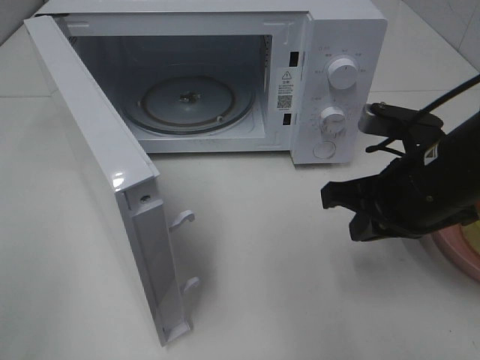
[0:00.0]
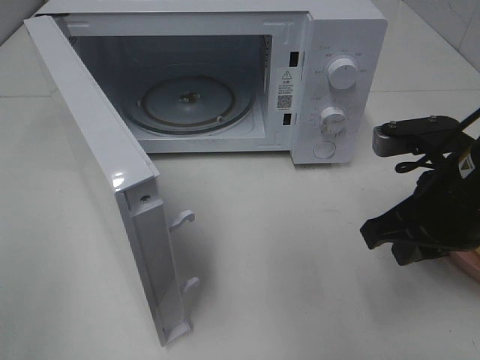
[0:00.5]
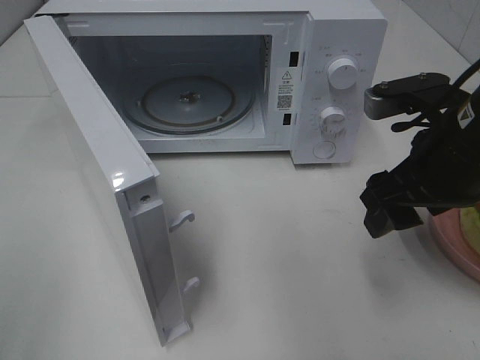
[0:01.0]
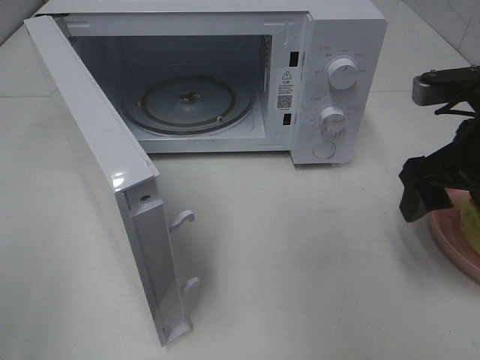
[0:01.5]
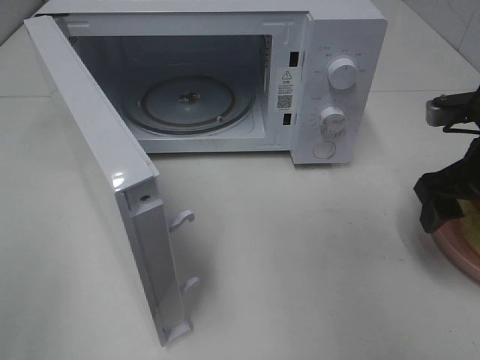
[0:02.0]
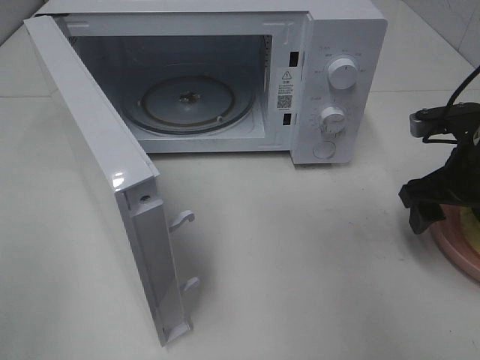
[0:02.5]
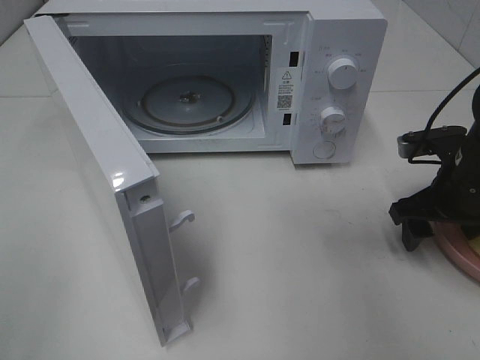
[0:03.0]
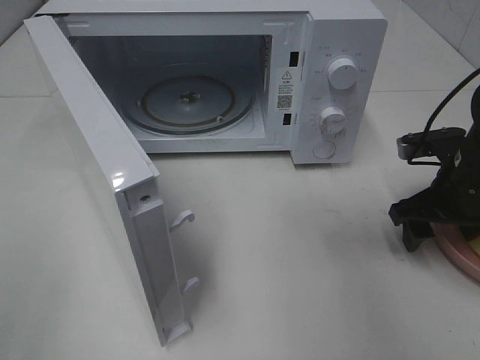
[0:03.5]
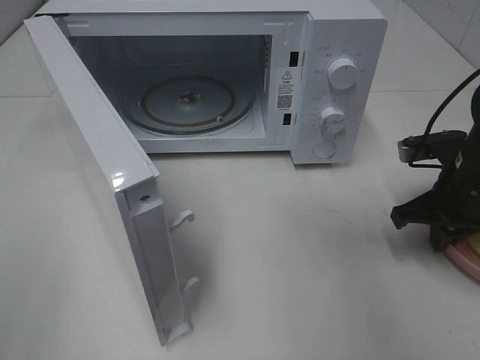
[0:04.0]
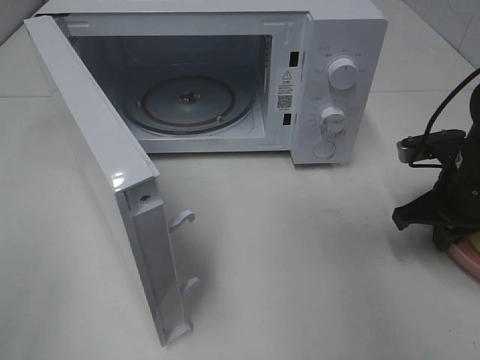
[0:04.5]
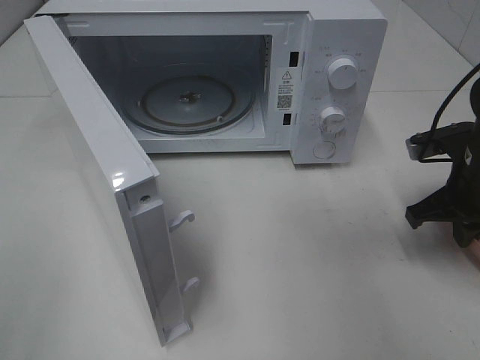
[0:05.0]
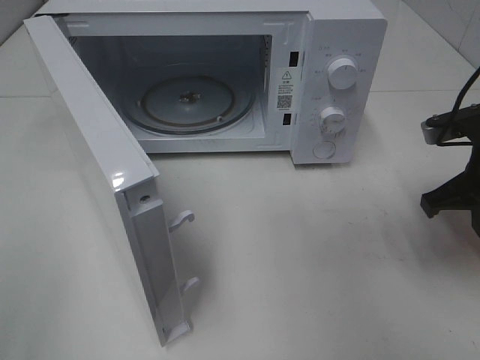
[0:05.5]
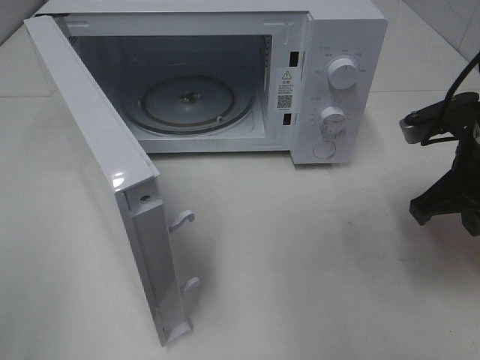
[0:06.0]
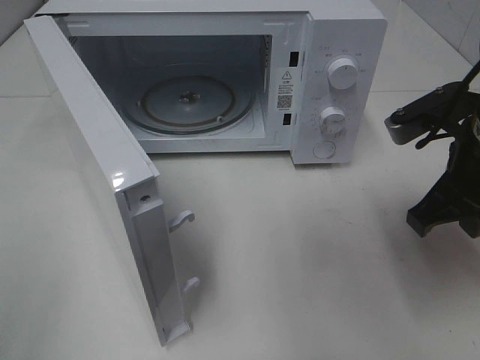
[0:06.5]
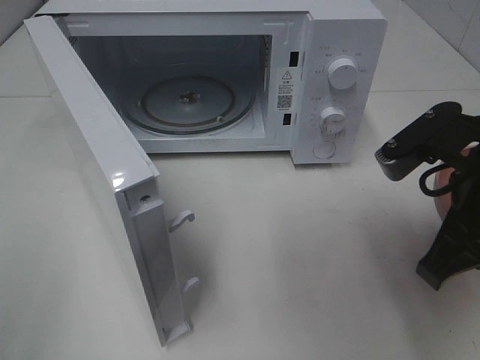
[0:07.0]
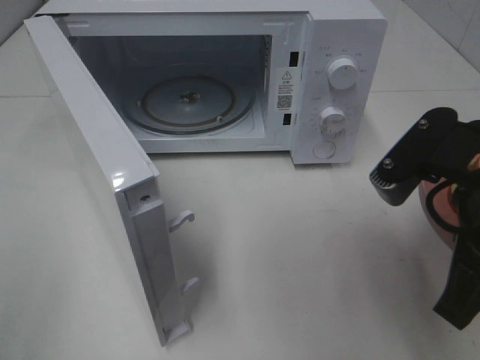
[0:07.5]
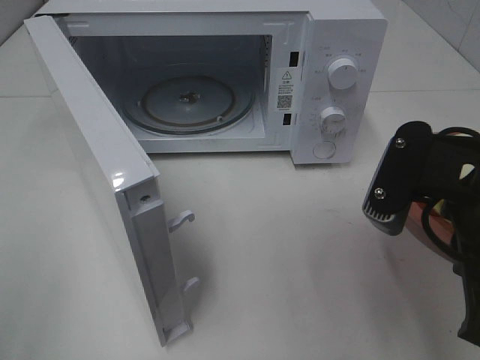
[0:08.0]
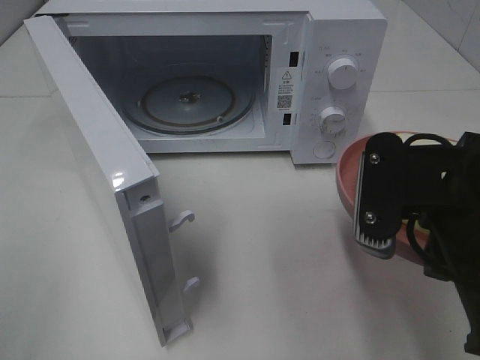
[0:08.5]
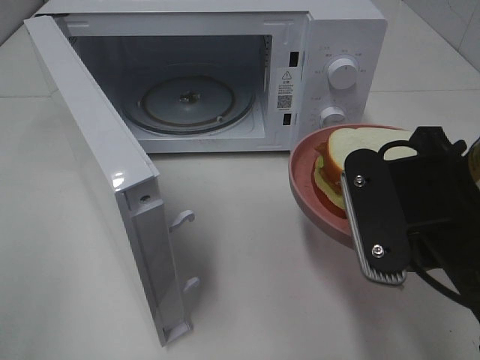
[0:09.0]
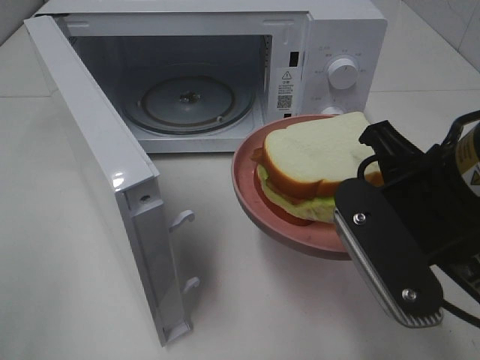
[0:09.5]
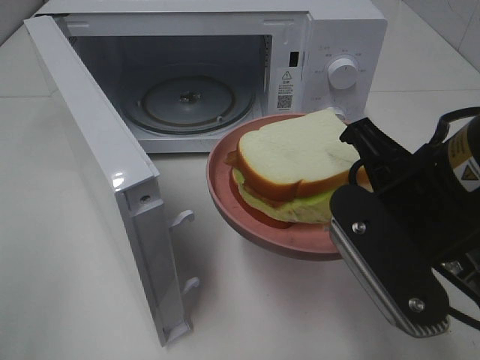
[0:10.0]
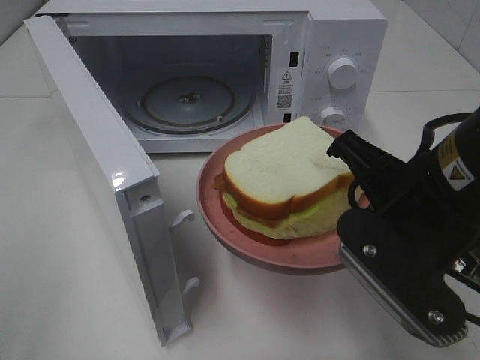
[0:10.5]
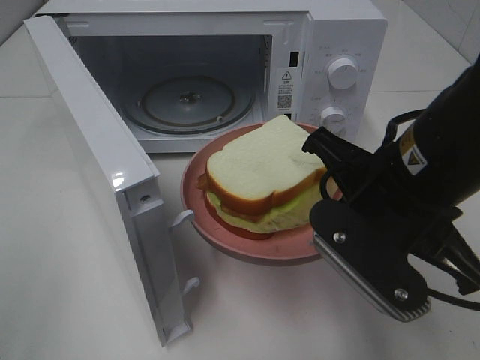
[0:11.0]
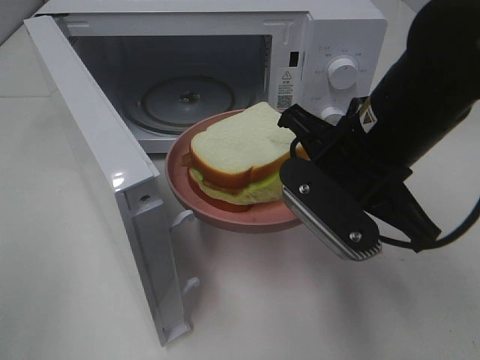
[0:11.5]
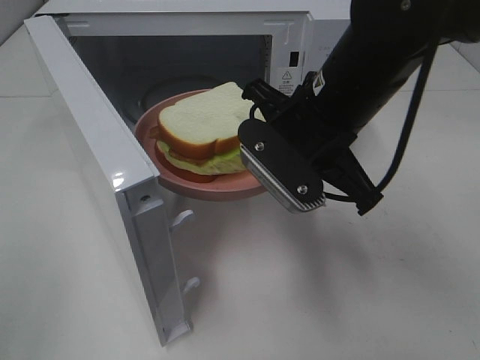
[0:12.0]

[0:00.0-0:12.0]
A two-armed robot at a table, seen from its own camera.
Task of the whole recording: Heat Sandwich.
Step, 0.0 to 4.5 s: Right hand: grab the plate with the sandwich.
0.0 to 2.0 s: The right gripper travels to the right by roughly 10 cm, and opens its fingers.
2.0 to 4.0 s: The right gripper is displaced downward by roughly 5 cm, and closes its fingers.
4.0 to 6.0 s: The right gripper travels upward by some 5 cm.
6.0 to 8.0 s: The right gripper moves backward and to the left, roughly 15 cm.
10.0 to 12.0 s: The right gripper travels forward and to the left by some 10 cm.

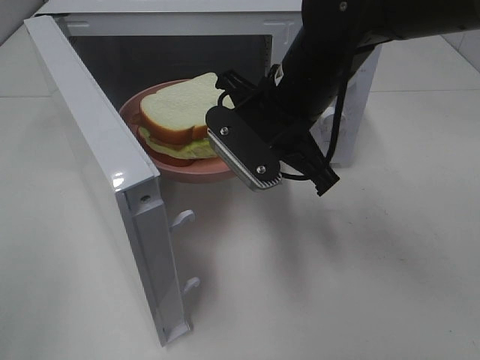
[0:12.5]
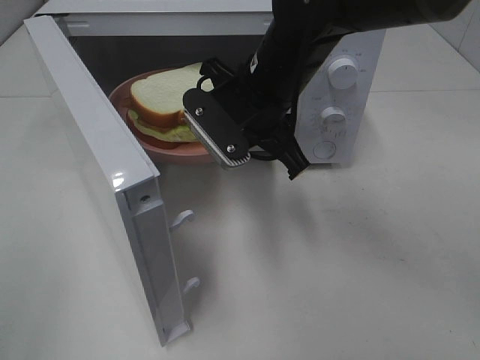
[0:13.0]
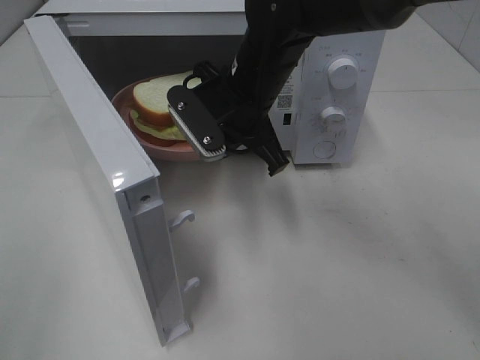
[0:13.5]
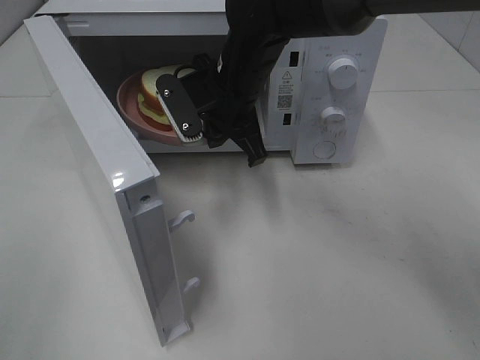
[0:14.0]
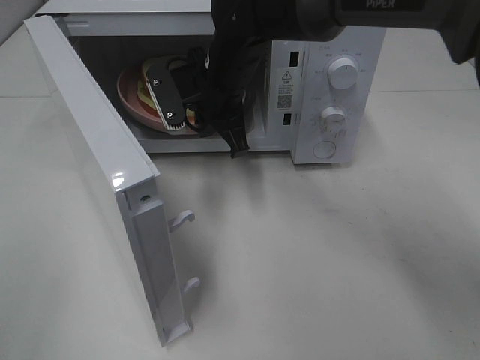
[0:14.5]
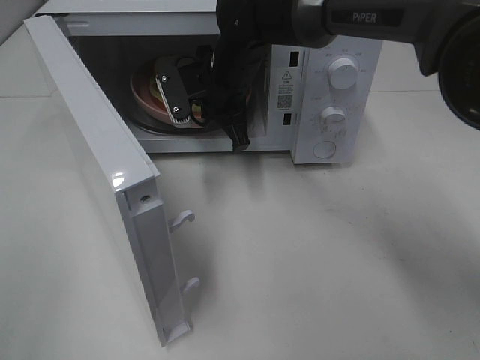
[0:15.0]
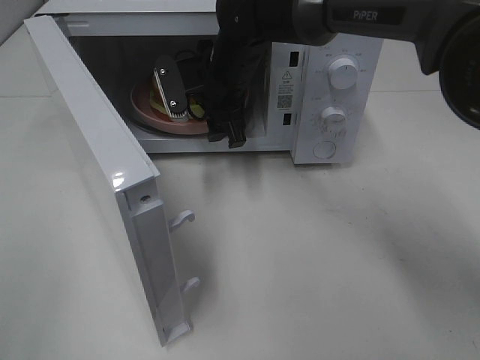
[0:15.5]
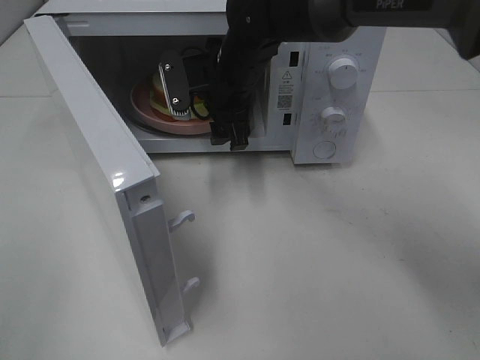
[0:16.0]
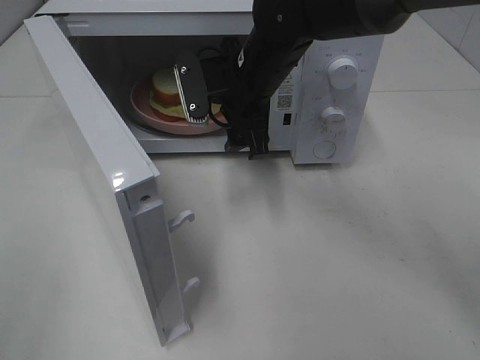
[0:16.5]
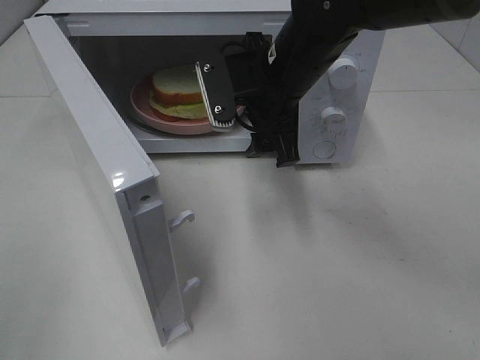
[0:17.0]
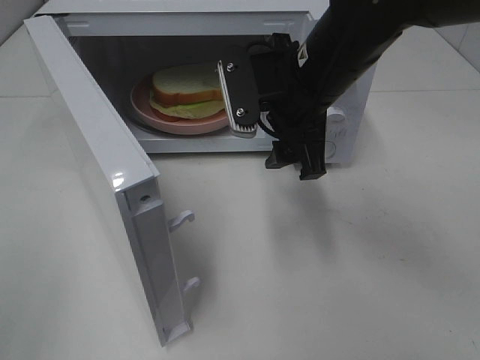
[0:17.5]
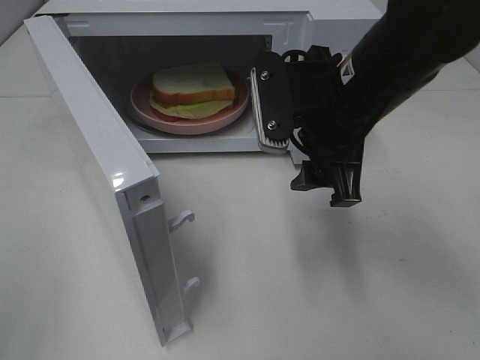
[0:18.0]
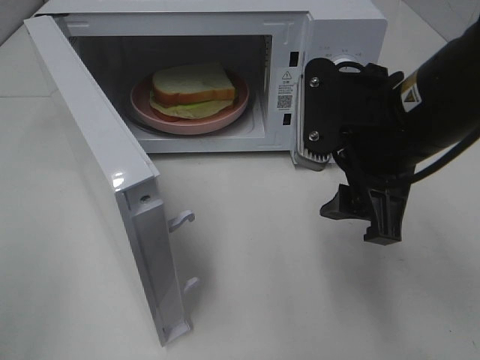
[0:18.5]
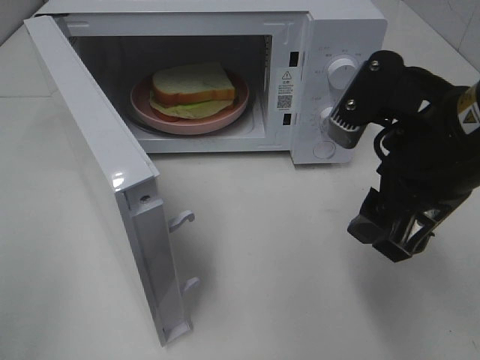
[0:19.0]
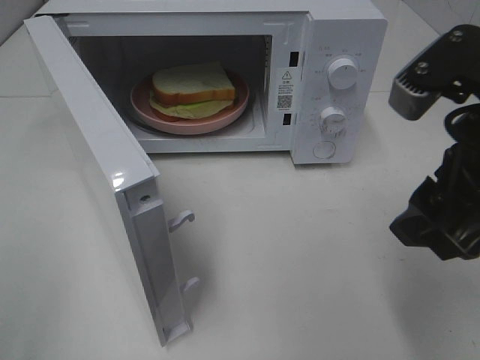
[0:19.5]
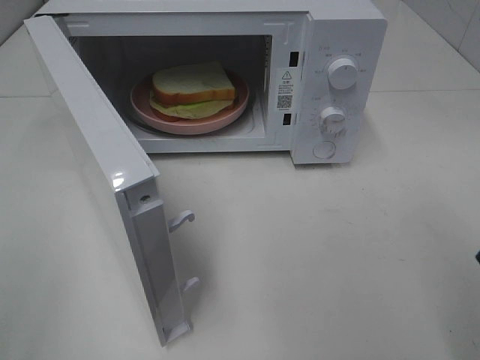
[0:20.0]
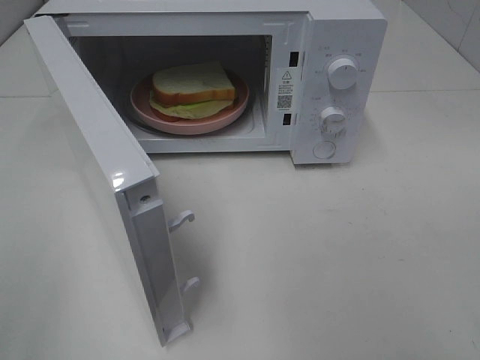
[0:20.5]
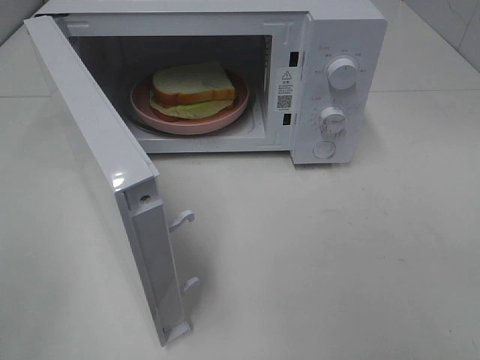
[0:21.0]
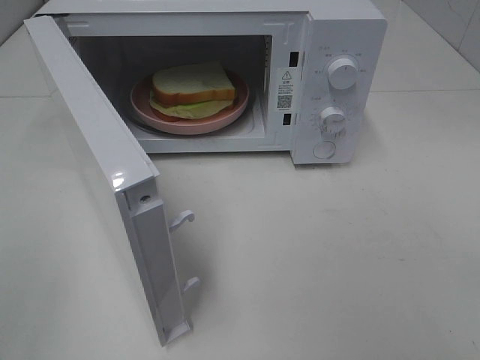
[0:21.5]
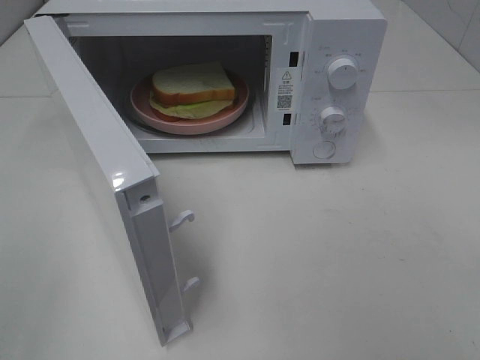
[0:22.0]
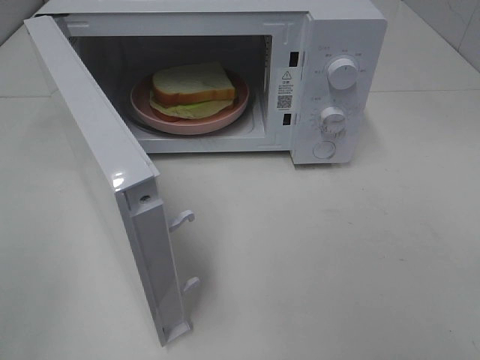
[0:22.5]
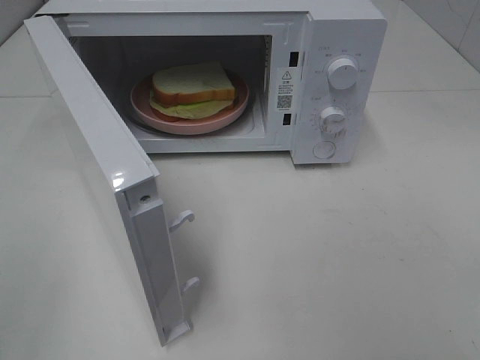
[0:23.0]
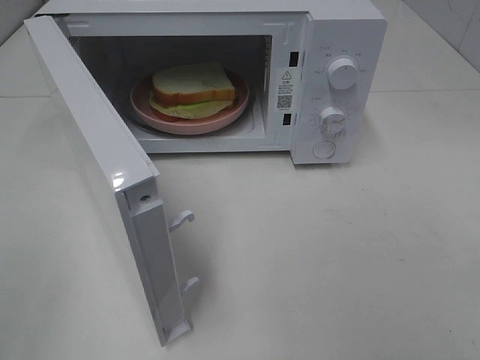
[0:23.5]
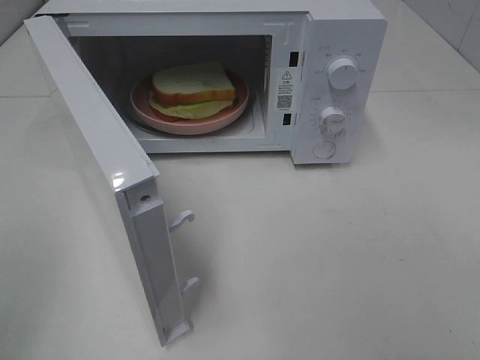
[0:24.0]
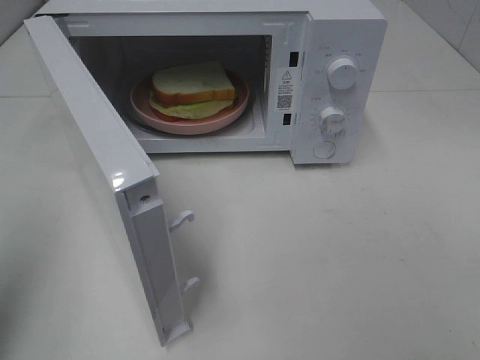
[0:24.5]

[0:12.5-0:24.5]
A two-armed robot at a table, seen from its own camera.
Task of the whole recording: Heat Sandwich.
Step, 12.5 to 15.5 s: Right hand: place the plate in the microwave.
12.5 to 14.5 s: The right gripper shifts approximately 10 cm forward and to the left.
14.5 to 16.5 s: The right gripper opens its fingers.
16.5 to 18.5 s: The right gripper heads backward and to the right, covering approximately 20 cm.
18.5 to 20.5 s: The right gripper moves backward, to the right and upward, about 20 cm.
22.5 to 24.5 s: The left gripper travels forward by roughly 10 cm, and closes up.

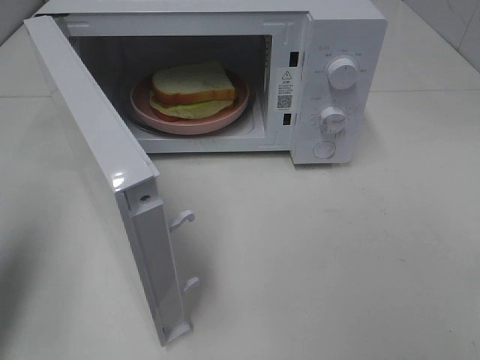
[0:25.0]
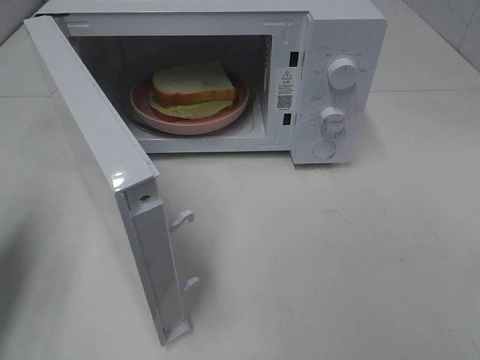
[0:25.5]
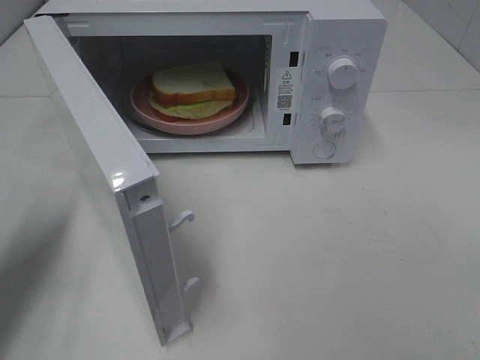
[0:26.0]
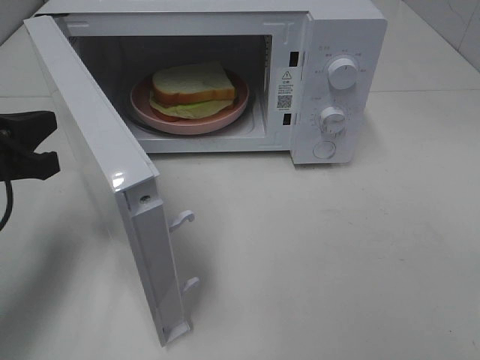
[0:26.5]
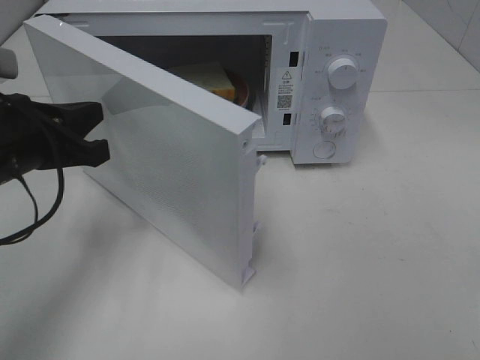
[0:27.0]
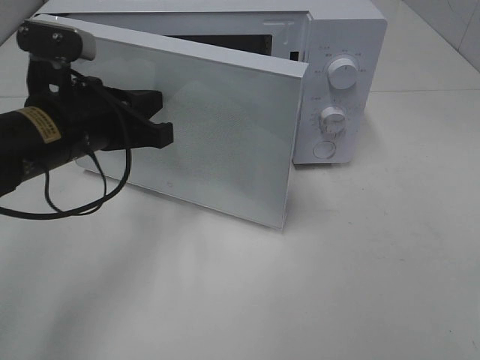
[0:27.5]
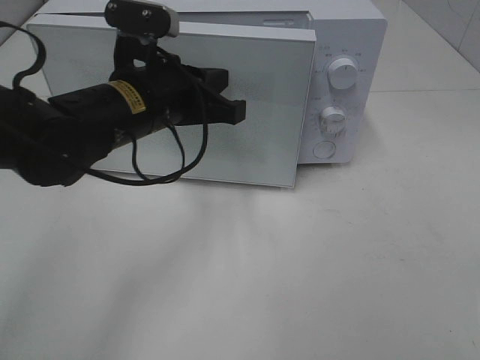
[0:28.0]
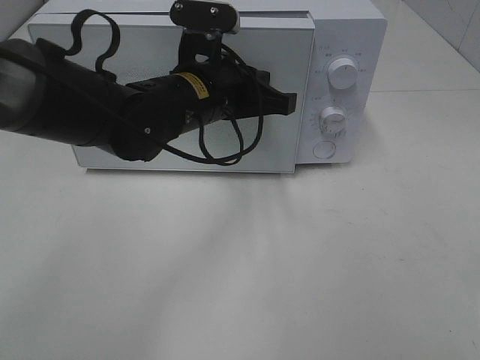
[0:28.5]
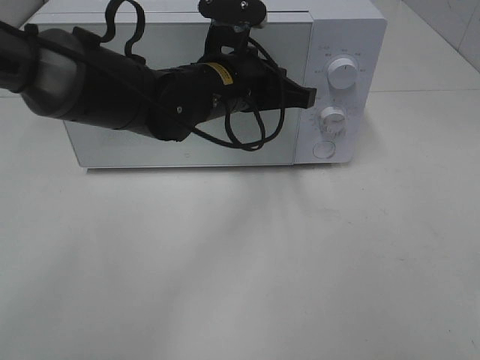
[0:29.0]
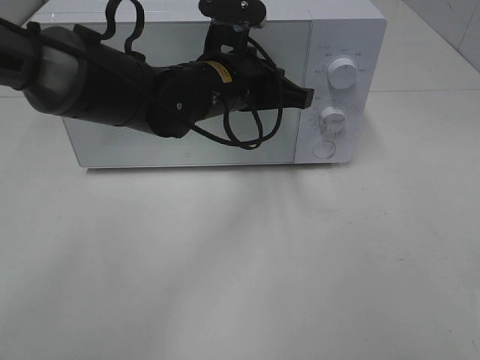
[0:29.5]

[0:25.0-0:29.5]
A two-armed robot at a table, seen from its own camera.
Task of the whole recording: Heat Sandwich.
25.0 to 27.0 s: The left gripper goes roughly 15 cm to the right, forward and downward.
27.0 to 29.5 s: The left gripper moves to the right and forward, approximately 20 cm.
